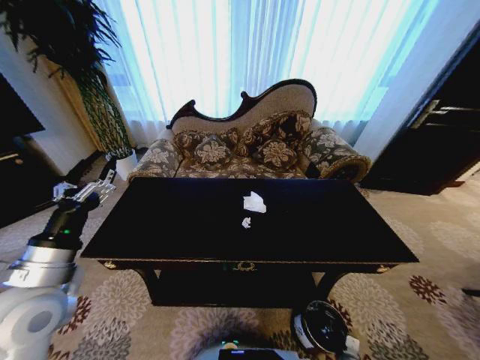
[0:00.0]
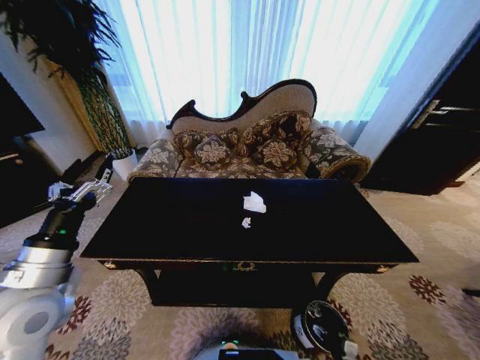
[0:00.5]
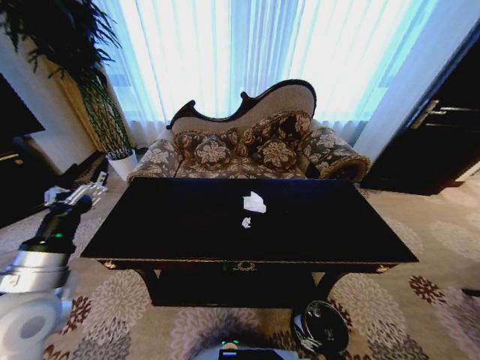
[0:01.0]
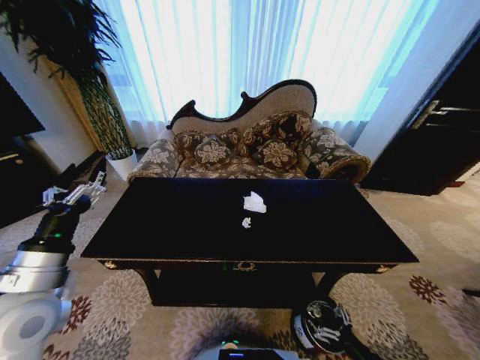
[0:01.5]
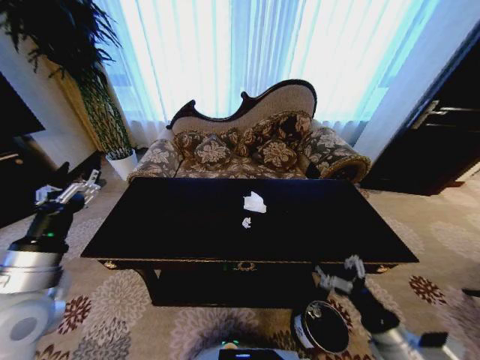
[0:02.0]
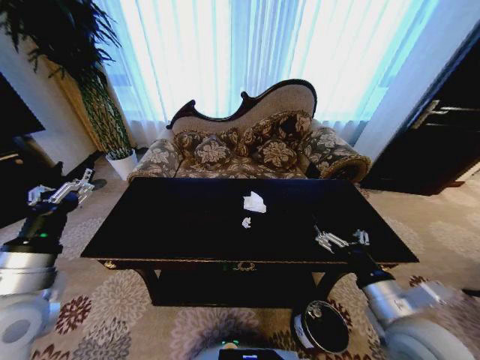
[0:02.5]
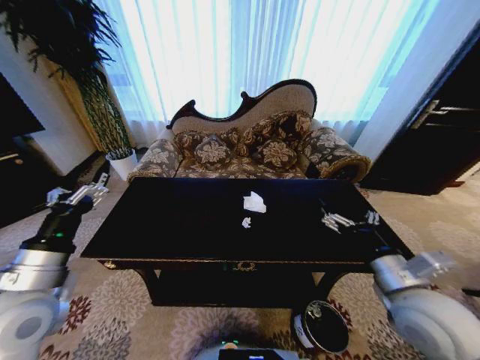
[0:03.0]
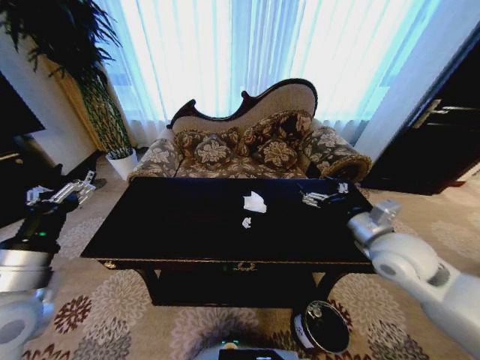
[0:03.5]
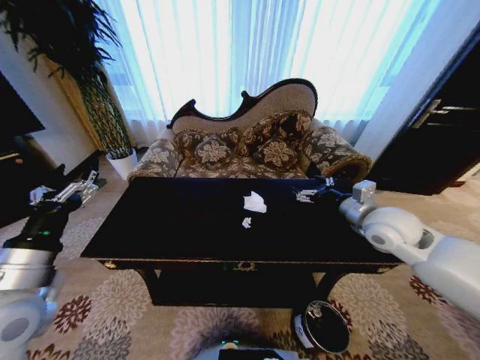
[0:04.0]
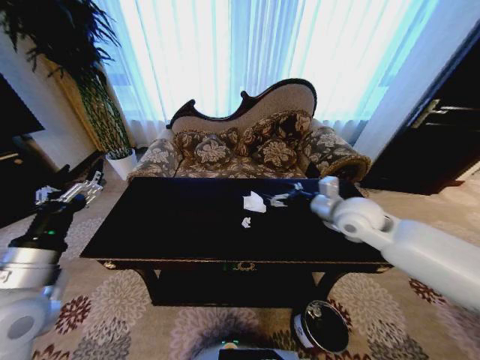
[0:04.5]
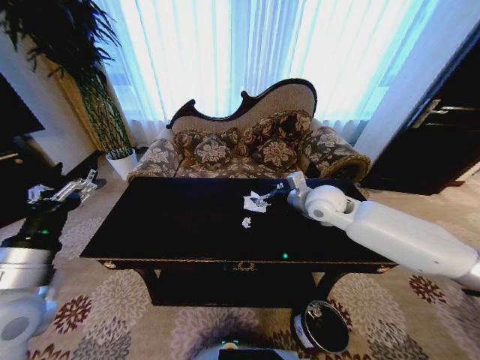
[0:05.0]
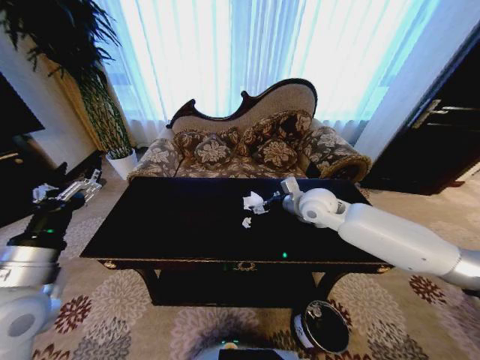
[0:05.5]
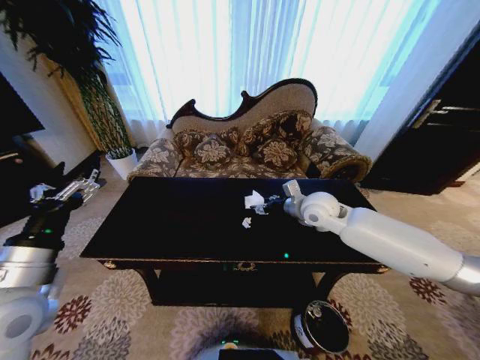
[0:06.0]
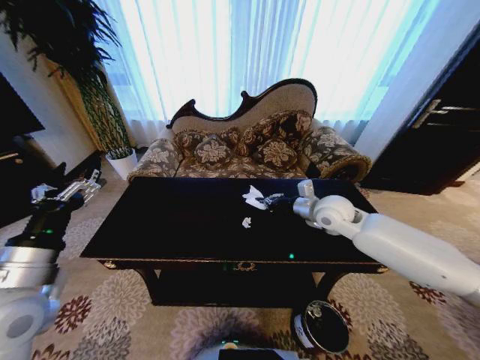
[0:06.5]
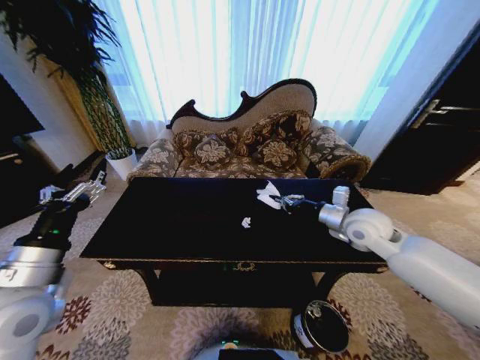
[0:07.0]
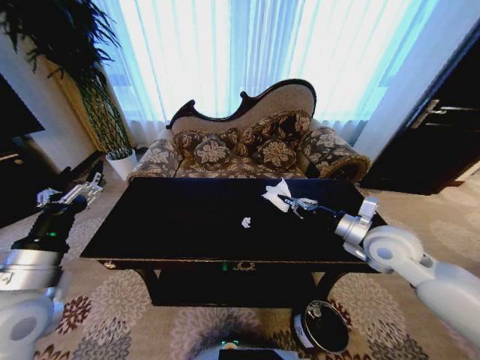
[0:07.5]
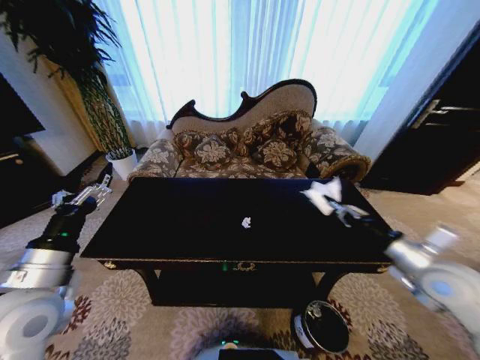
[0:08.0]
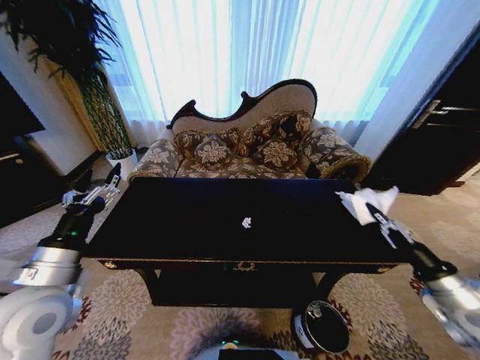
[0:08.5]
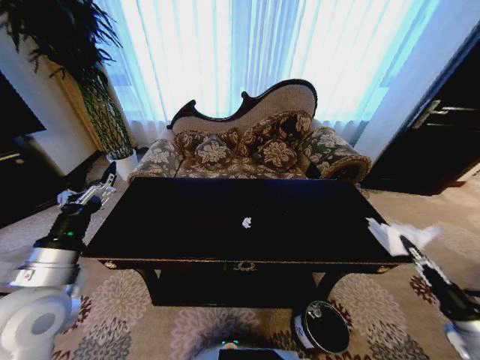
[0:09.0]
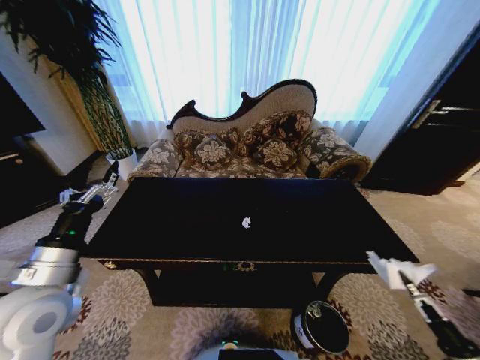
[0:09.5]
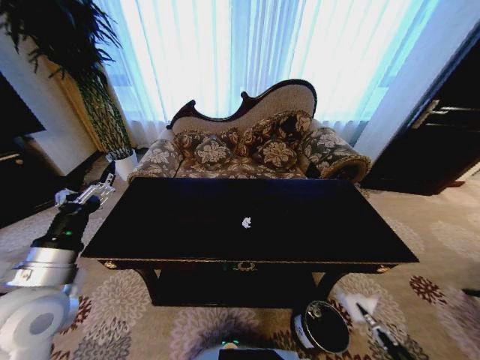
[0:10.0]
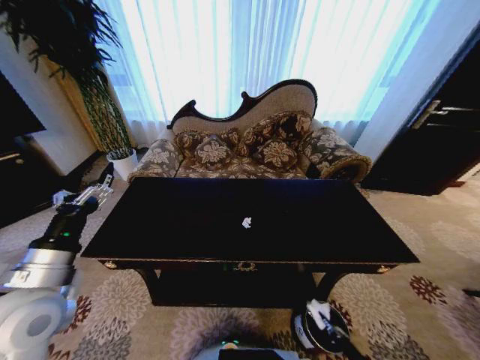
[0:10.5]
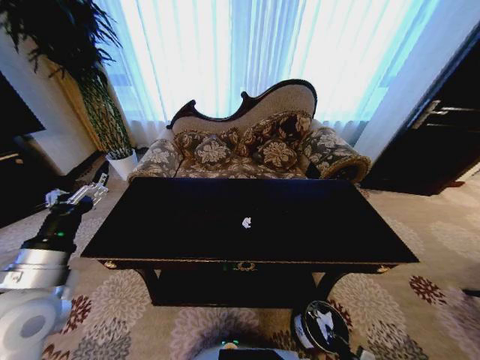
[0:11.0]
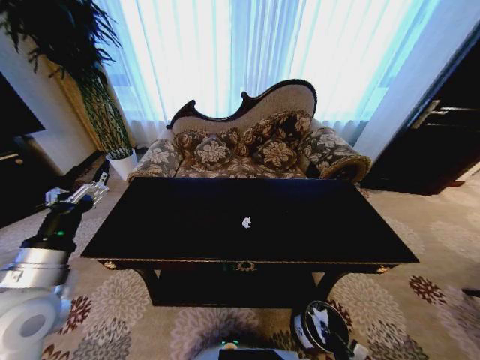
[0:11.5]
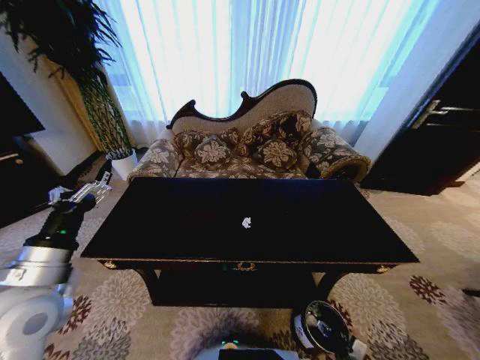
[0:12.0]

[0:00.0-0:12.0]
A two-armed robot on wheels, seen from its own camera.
Task of the whole recording: Move to the front of the table and place the trash on the table into the trash bin.
0:00.0 to 0:02.0: The right gripper travels upward by approximately 35 cm, and opens its fingers.
0:02.0 to 0:04.0: The right gripper moves forward and upward, roughly 30 cm.
0:04.0 to 0:06.0: The right gripper moves to the left and forward, approximately 15 cm.
0:06.0 to 0:08.0: The right gripper is displaced backward and to the right by roughly 25 cm, and closes up.
0:08.0 to 0:10.0: The right gripper travels downward, backward and to the right by roughly 40 cm.
0:10.0 to 0:12.0: The right gripper heads to the left, downward and forward, covering some 20 cm, and opens.

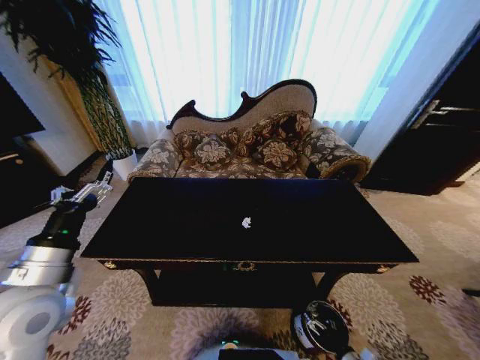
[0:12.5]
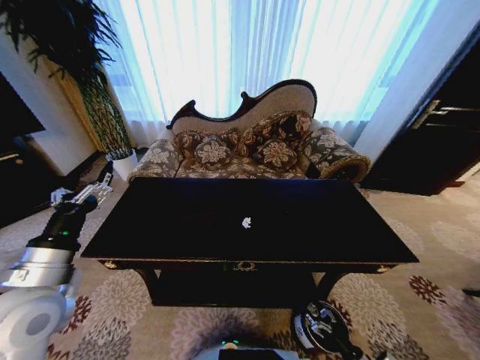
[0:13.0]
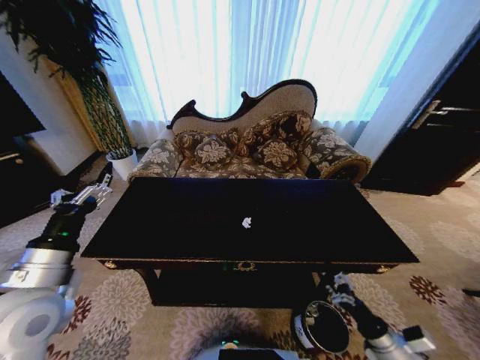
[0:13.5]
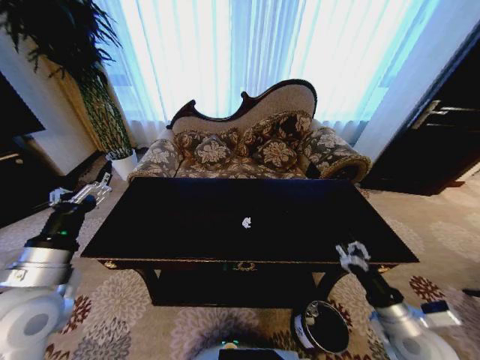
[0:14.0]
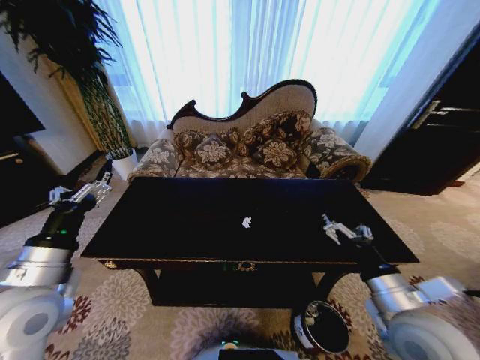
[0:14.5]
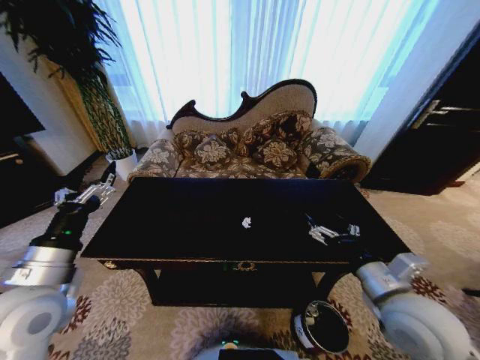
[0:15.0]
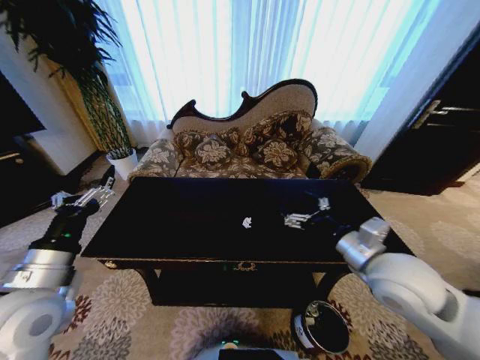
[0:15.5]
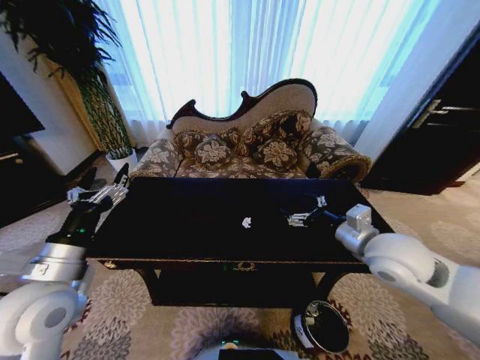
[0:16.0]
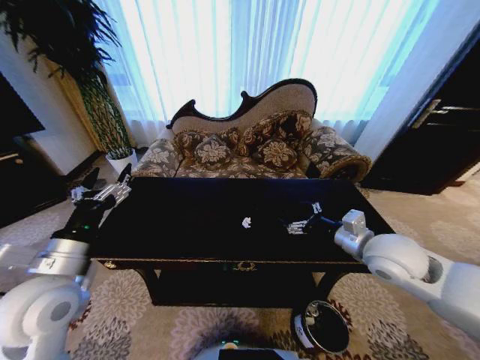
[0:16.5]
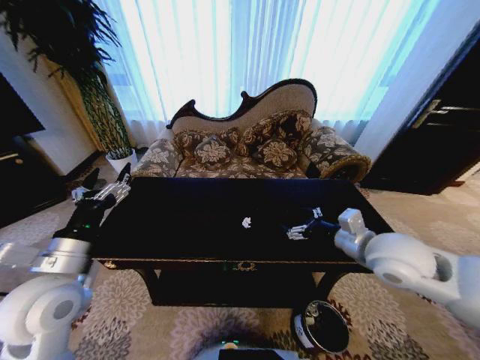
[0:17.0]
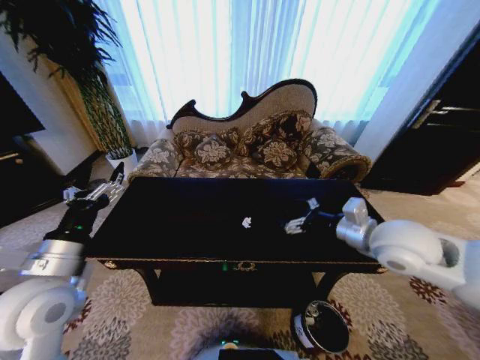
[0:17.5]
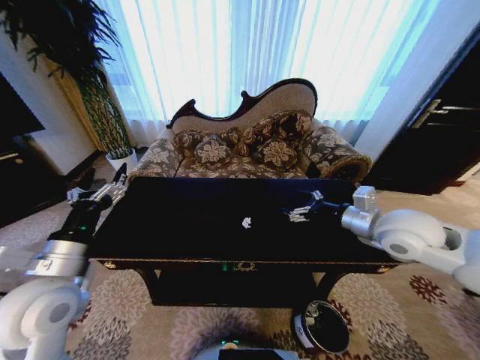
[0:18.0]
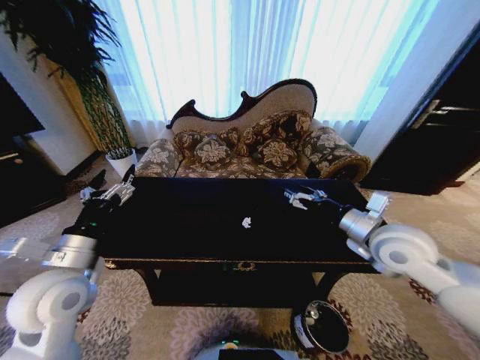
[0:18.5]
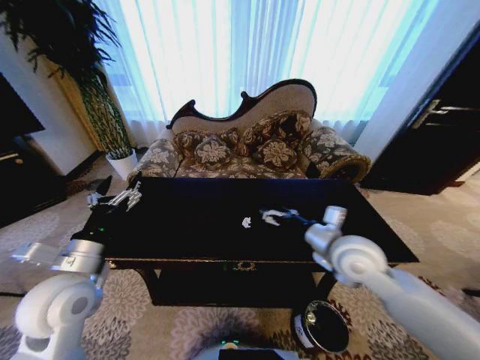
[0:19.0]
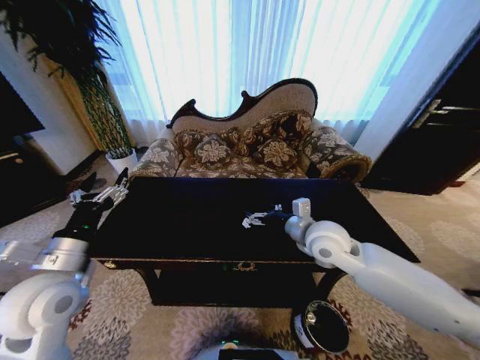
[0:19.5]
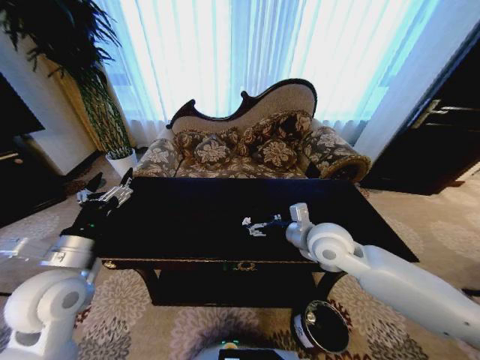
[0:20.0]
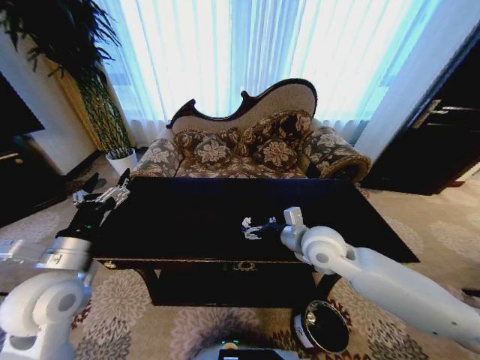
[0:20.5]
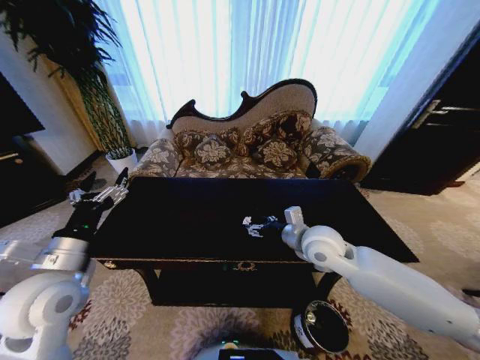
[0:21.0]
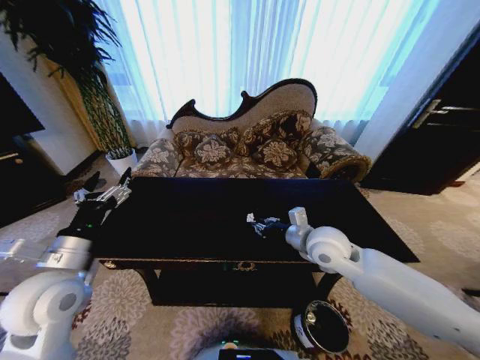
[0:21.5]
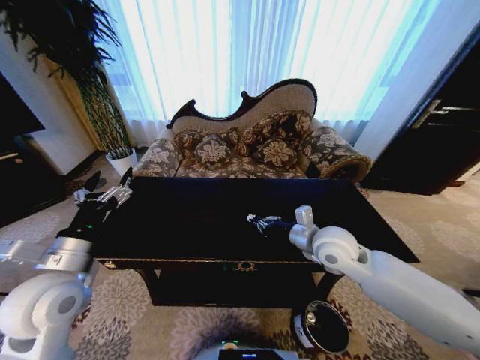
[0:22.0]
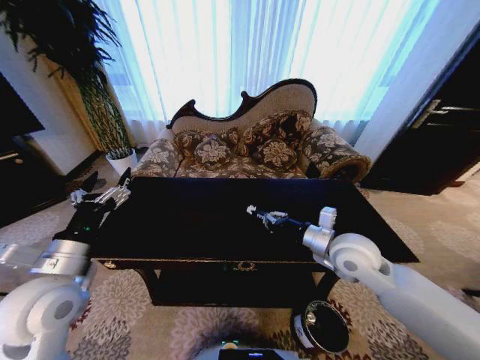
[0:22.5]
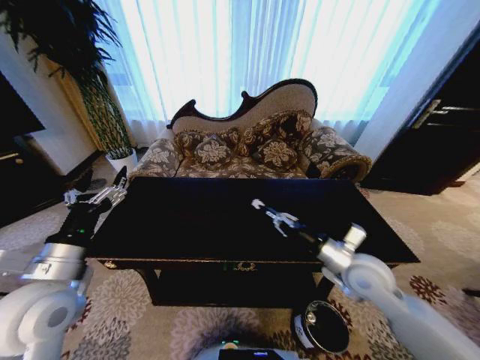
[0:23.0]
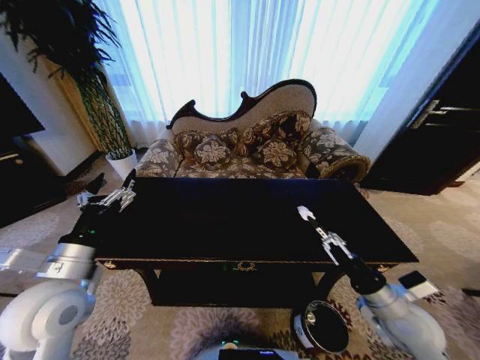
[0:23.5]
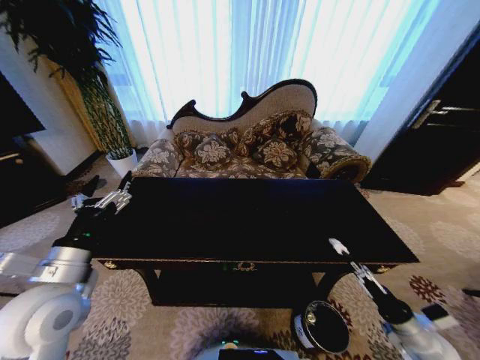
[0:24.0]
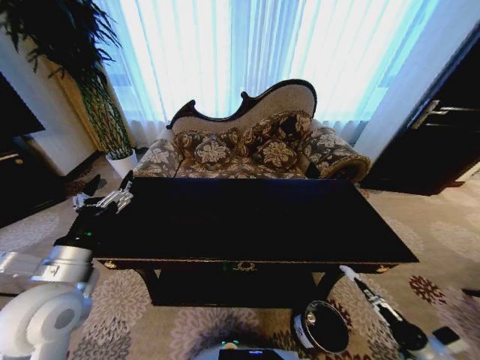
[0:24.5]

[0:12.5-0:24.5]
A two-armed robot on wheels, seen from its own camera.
Task of the whole recording: Move to the front of the table and place the trash on the table into the trash bin.
0:12.5 to 0:14.5: The right gripper is displaced upward by approximately 40 cm.
0:14.5 to 0:16.5: The right gripper is displaced forward by roughly 15 cm.
0:18.5 to 0:20.5: The right gripper heads to the left and downward, covering about 15 cm.
0:20.5 to 0:22.5: The right gripper travels to the right by about 5 cm, and closes.
0:22.5 to 0:24.5: The right gripper shifts roughly 40 cm to the right, downward and backward.

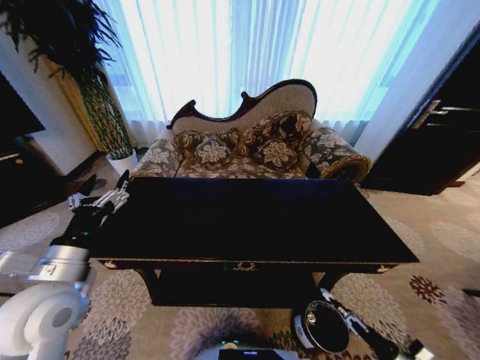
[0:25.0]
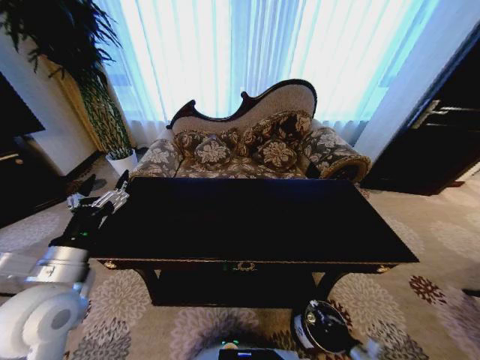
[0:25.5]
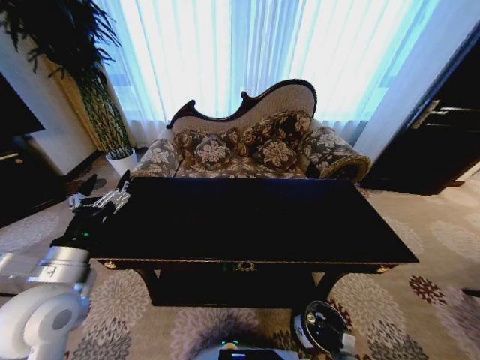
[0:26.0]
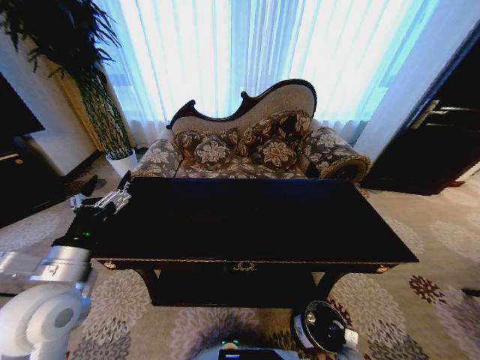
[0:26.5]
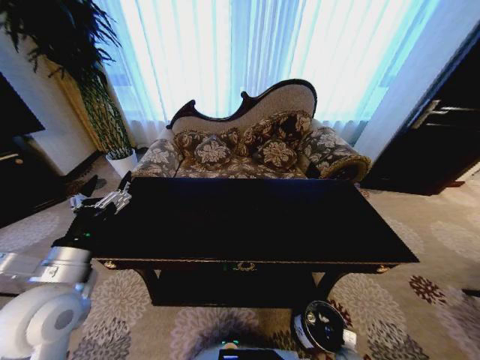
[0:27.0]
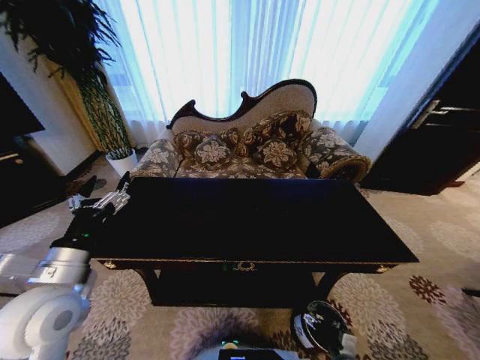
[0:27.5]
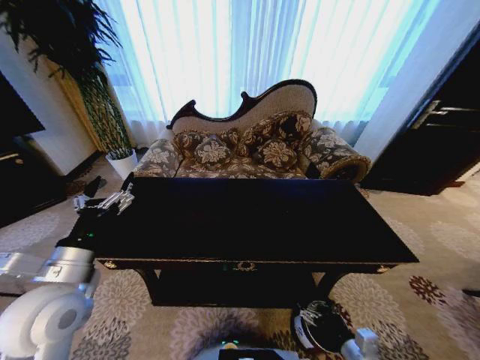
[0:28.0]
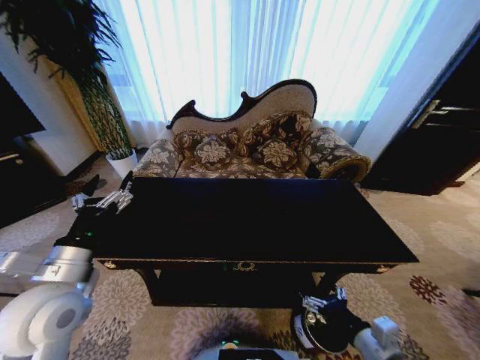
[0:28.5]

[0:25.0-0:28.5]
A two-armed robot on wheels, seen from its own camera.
Task of the whole recording: Move to the front of the table and place the trash on the table into the trash bin.
0:25.0 to 0:27.0: The right gripper moves to the left and downward, roughly 15 cm, and opens.
0:27.0 to 0:28.5: The right gripper travels upward by about 35 cm, and opens.
